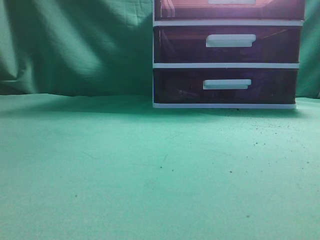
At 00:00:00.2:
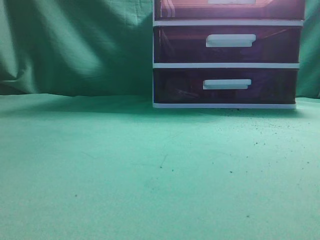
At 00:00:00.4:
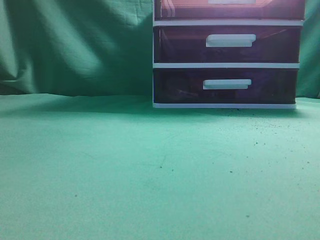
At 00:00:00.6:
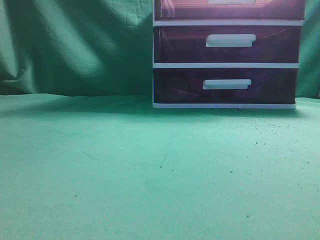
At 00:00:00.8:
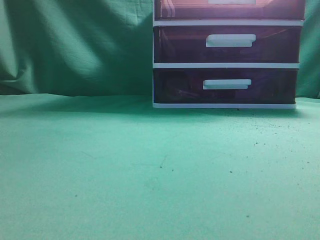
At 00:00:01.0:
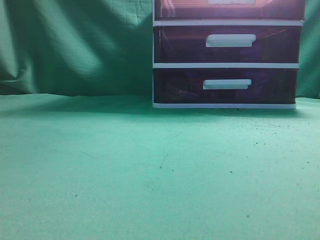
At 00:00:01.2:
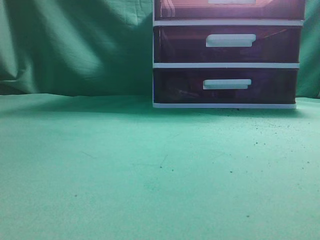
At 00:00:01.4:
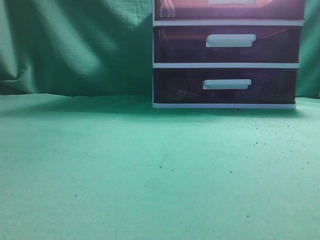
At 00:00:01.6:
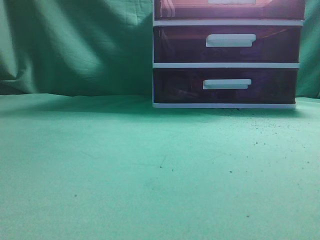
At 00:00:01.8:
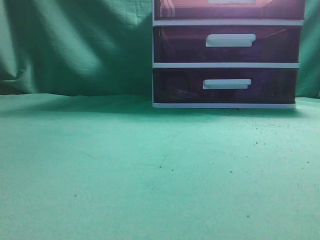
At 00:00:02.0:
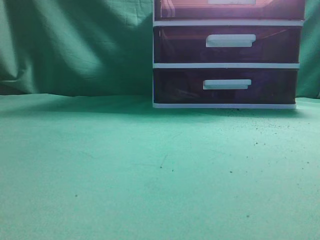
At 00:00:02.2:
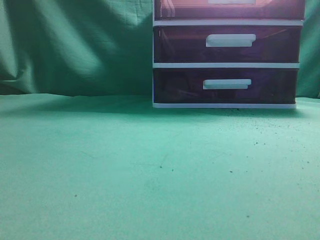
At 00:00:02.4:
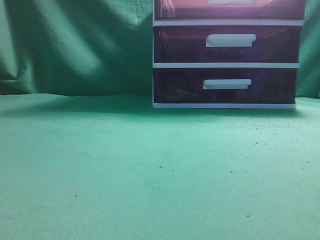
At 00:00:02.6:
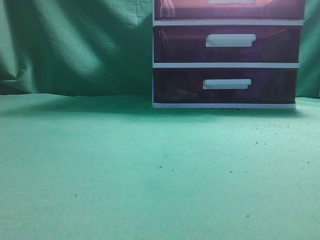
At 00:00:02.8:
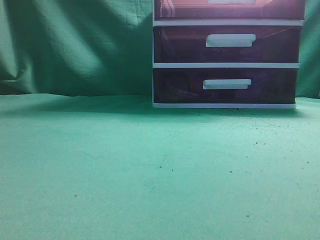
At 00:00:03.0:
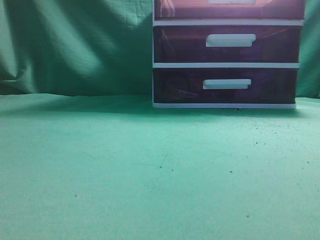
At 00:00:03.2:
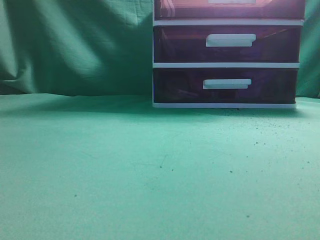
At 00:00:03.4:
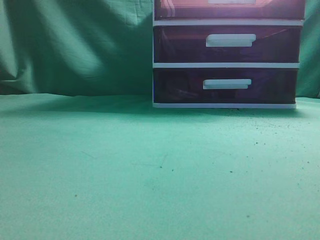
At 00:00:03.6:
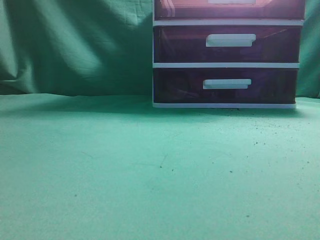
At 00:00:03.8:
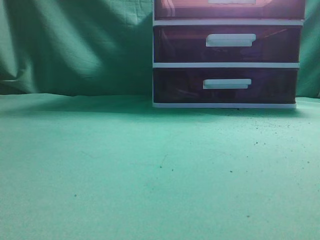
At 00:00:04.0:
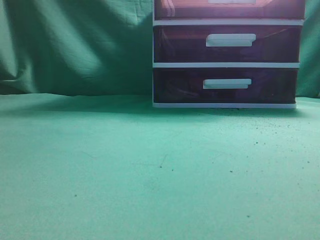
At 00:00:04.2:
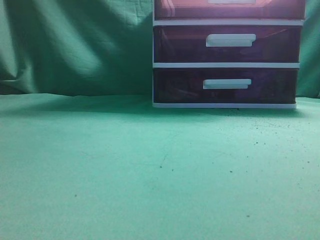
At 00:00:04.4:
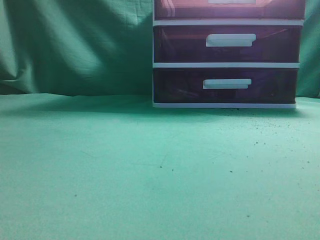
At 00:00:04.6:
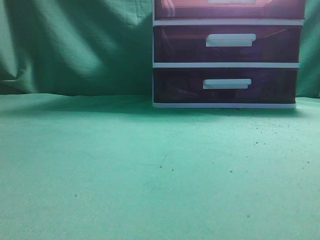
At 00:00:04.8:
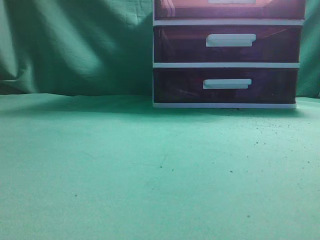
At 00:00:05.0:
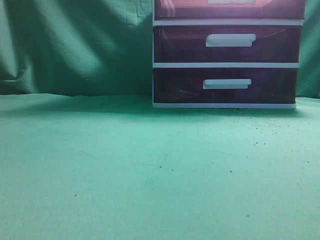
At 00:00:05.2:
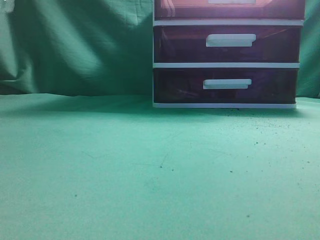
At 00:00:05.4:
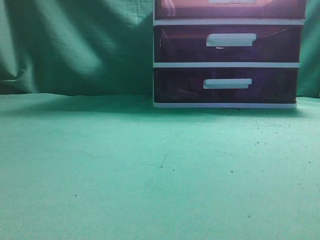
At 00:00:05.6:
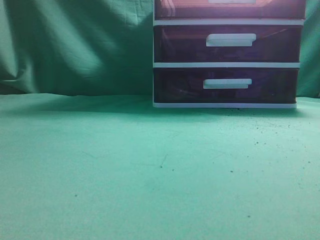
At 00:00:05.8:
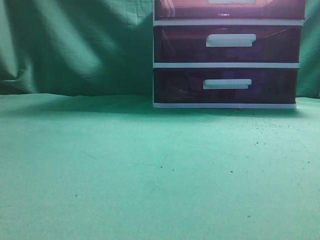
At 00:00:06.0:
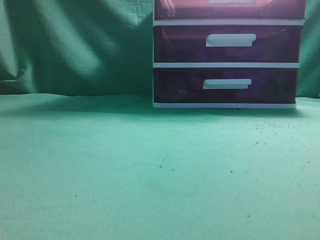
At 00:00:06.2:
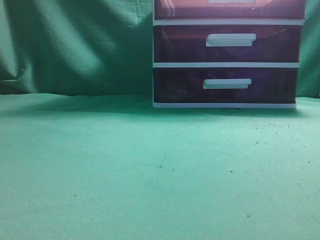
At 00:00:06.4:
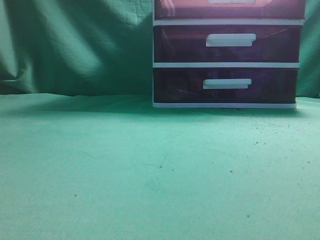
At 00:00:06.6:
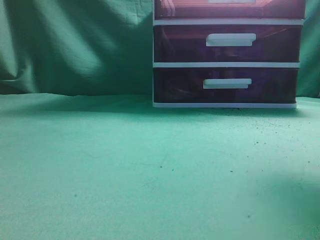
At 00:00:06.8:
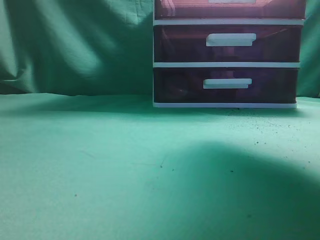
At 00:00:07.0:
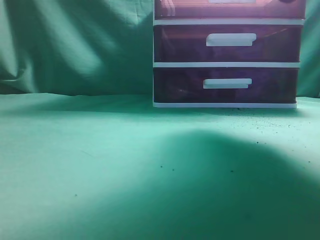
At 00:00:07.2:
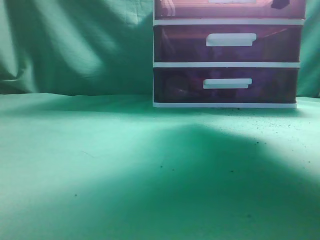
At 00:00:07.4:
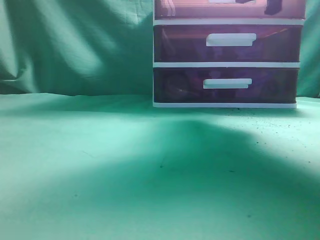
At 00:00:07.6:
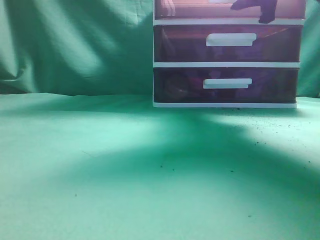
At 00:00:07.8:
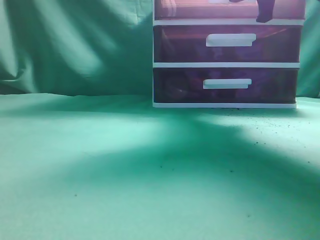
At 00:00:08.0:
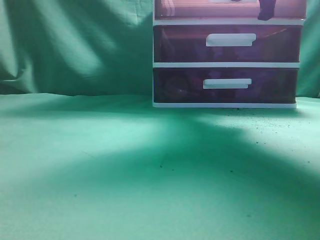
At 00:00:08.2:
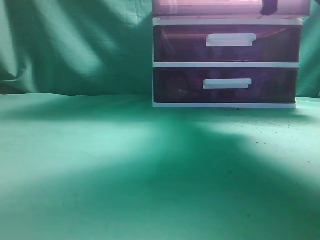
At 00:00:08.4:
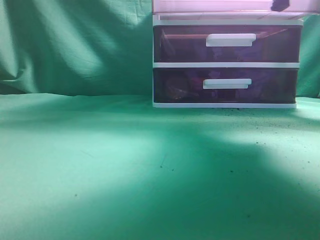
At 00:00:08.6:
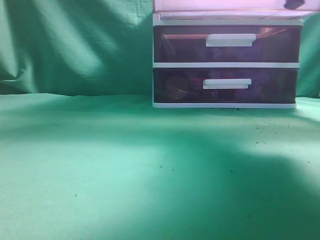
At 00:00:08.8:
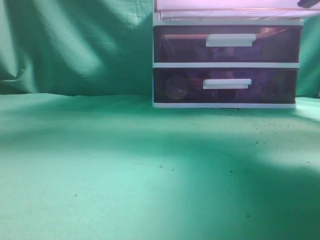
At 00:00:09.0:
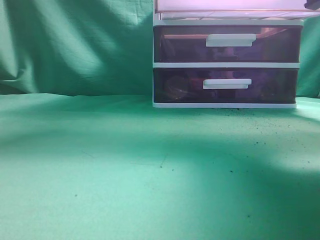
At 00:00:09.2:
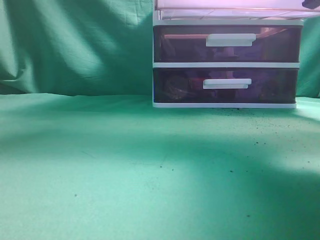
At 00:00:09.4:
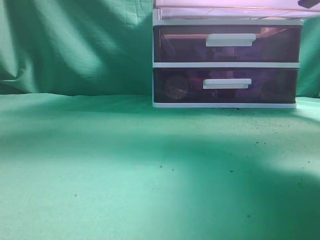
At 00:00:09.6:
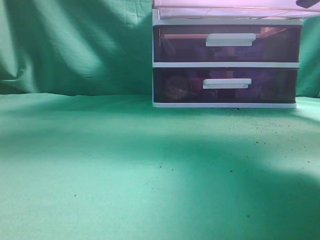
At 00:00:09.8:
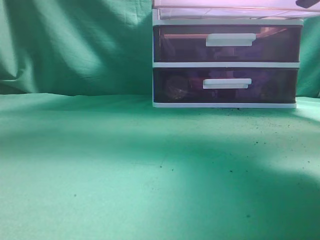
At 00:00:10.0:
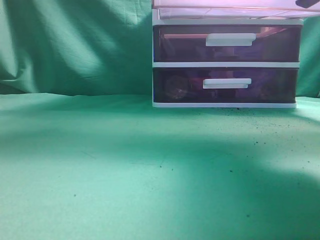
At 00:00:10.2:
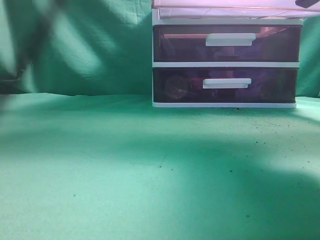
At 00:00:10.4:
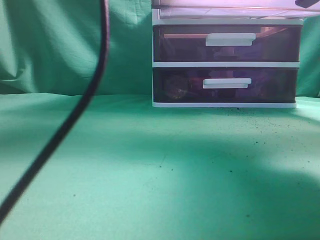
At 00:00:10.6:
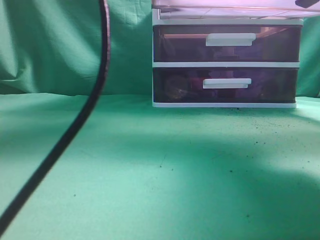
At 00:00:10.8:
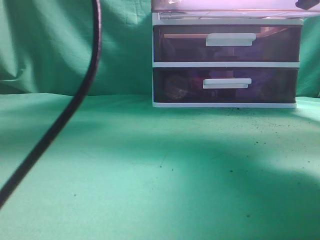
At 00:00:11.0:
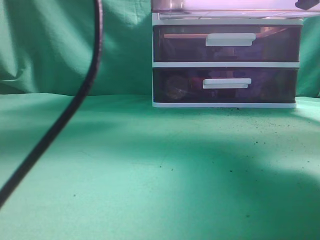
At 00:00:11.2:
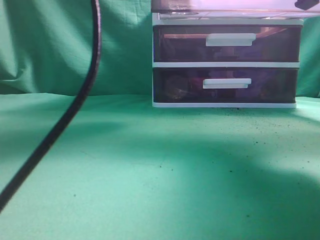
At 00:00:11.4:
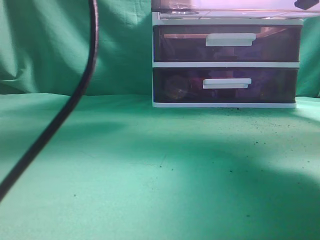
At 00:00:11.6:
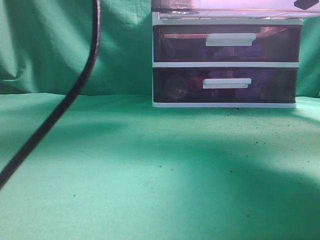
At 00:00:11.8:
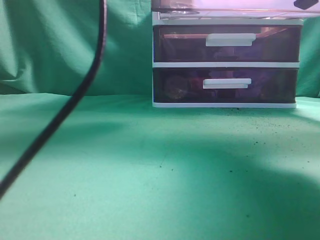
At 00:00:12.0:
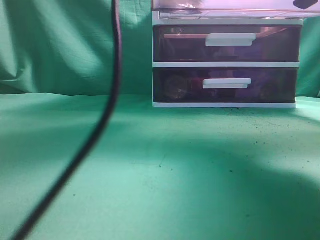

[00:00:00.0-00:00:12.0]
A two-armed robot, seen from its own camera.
Task of the whole recording: place the water bottle into the drawer.
Step, 00:00:00.0 to 00:00:09.8: Open the drawer.
00:00:06.0 to 00:00:07.6: The right gripper heads forward, covering approximately 30 cm, and opens its fingers.
00:00:07.6 to 00:00:09.0: The right gripper moves backward, approximately 10 cm, and closes its fingers.
00:00:09.0 to 00:00:10.4: The left gripper heads forward and to the right, covering approximately 25 cm.

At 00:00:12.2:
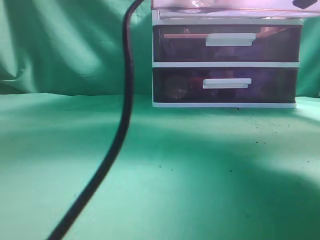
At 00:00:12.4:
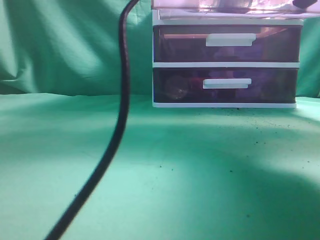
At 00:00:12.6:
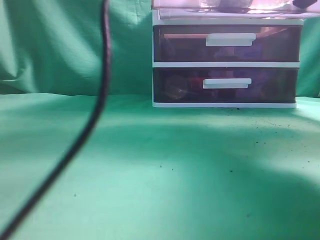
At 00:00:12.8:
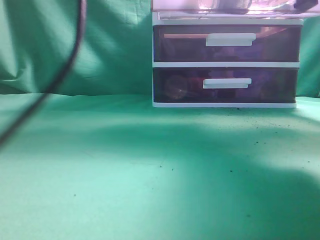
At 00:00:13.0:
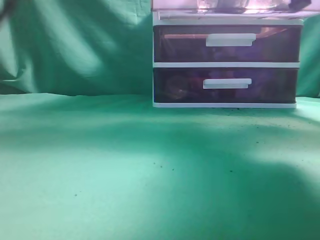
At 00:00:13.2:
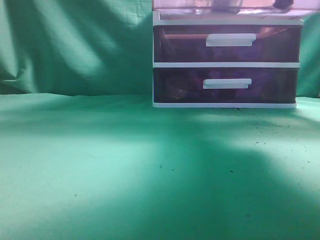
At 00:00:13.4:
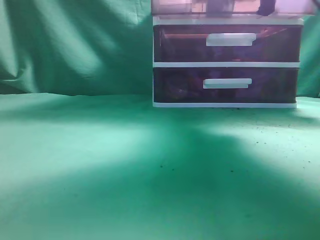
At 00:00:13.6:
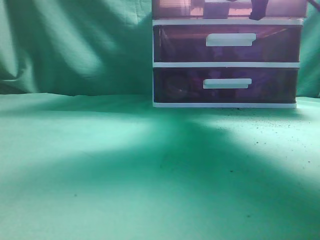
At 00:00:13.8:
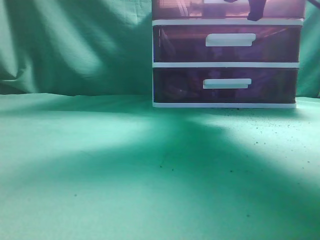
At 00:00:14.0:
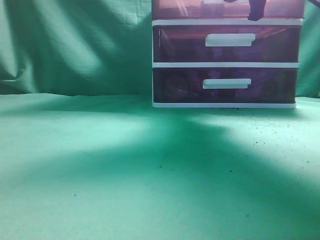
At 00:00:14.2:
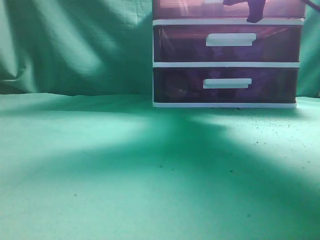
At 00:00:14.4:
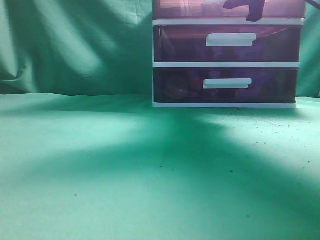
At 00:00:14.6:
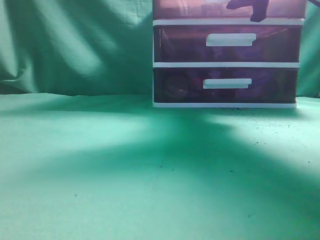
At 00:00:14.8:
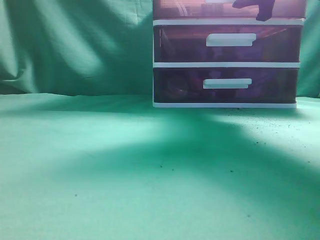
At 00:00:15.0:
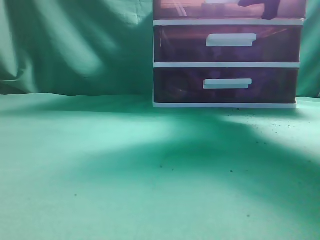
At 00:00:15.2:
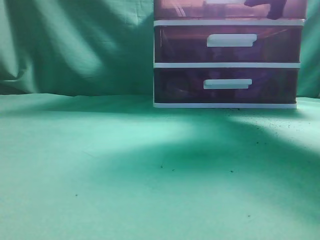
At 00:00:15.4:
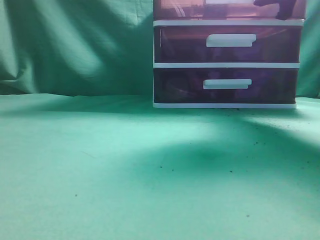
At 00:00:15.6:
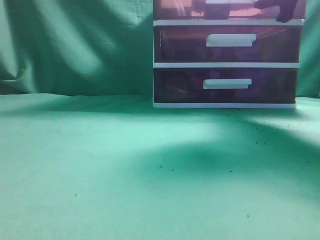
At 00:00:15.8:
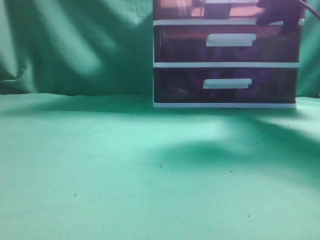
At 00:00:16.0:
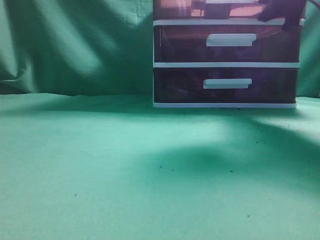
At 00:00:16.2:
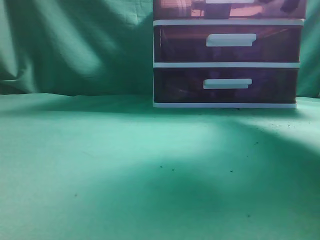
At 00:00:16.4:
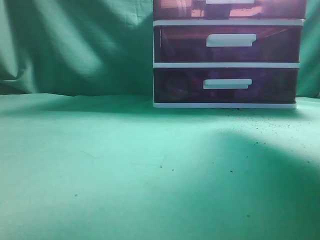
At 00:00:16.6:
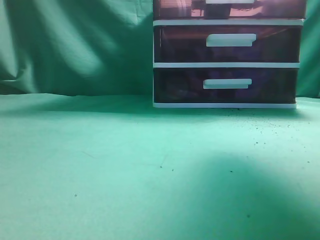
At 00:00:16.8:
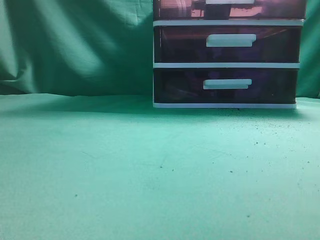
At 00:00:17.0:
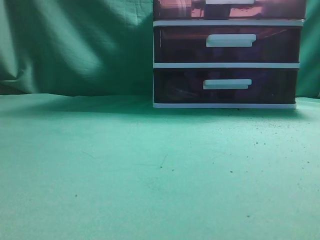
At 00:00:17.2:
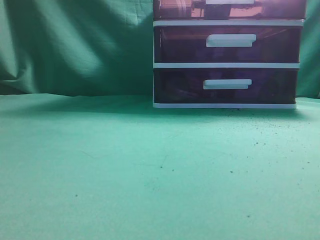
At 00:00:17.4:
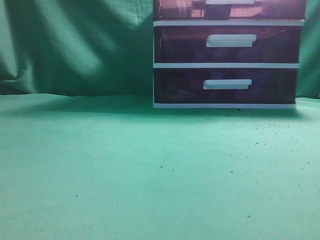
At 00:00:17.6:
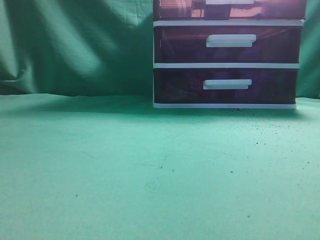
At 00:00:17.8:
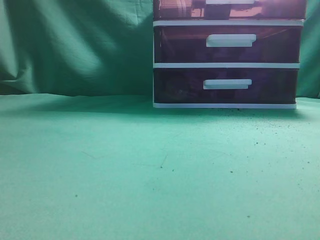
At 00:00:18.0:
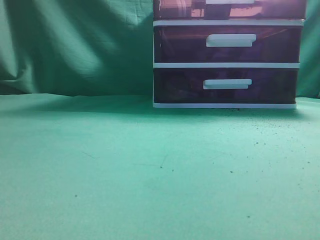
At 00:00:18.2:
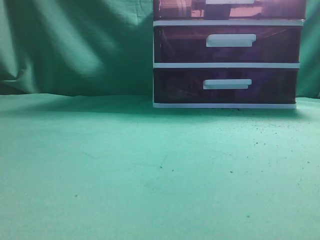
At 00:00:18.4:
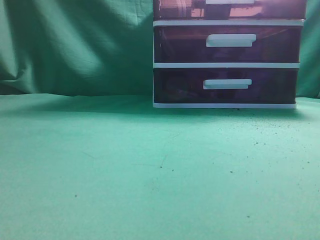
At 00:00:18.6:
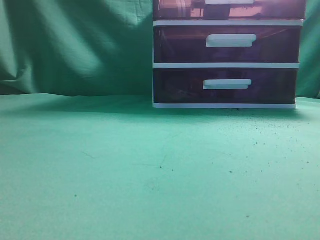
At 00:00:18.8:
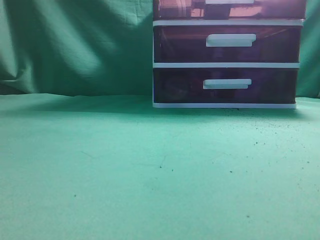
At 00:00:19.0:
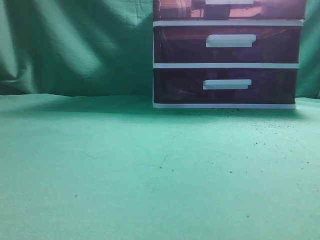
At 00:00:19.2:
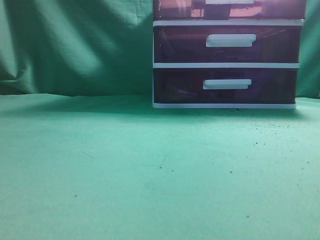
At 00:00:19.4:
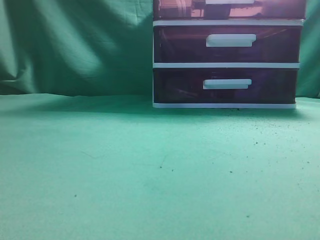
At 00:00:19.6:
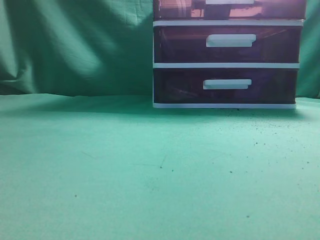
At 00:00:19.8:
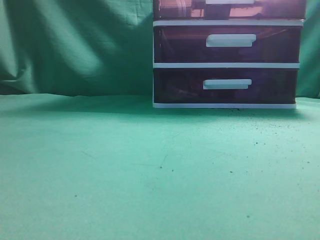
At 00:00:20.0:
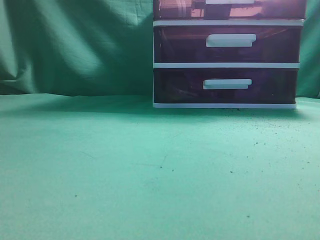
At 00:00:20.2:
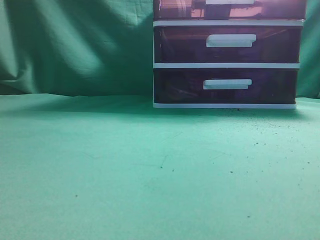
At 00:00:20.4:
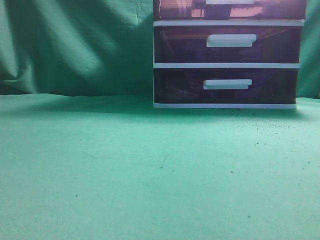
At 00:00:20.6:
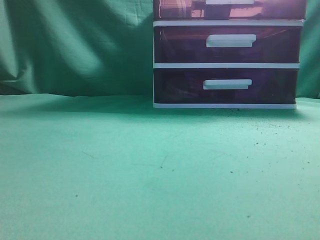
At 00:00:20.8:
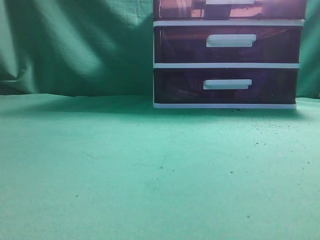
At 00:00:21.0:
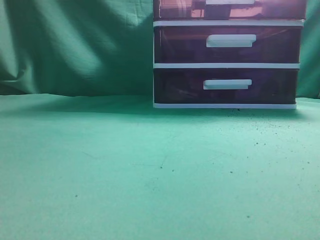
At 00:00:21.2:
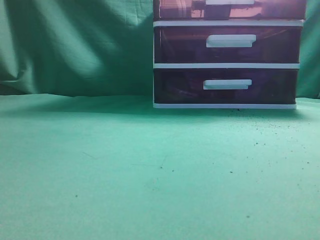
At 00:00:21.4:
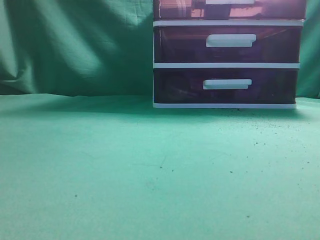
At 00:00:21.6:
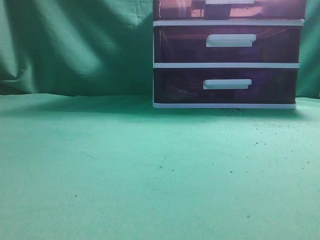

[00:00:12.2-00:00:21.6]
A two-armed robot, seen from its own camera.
Task of the whole recording: place the water bottle into the drawer.
Step, 00:00:13.0 to 00:00:16.2: Close the drawer.
00:00:12.2 to 00:00:13.8: The left gripper travels backward and to the left by about 25 cm, and closes, while the right gripper travels forward by about 15 cm.
00:00:13.8 to 00:00:15.4: The right gripper goes about 5 cm to the right, and opens.
00:00:15.4 to 00:00:17.0: The right gripper heads backward and upward, covering some 25 cm, and closes its fingers, while the left gripper moves backward and to the left, about 10 cm.
00:00:17.0 to 00:00:18.4: The right gripper goes about 20 cm backward.
